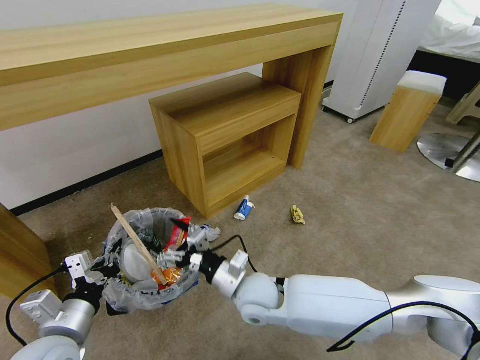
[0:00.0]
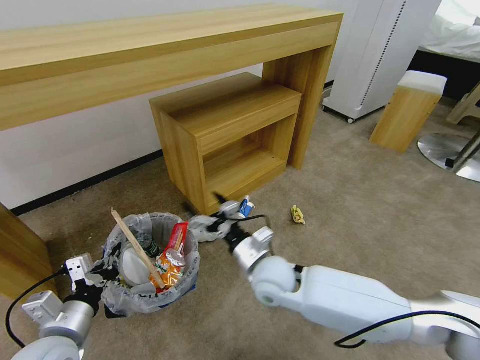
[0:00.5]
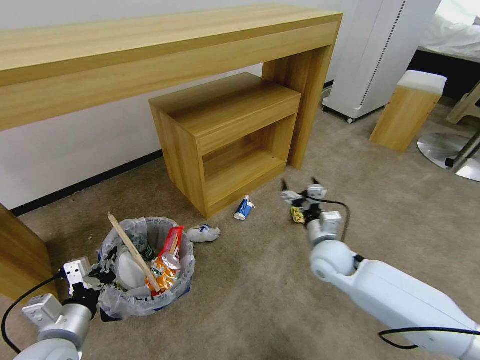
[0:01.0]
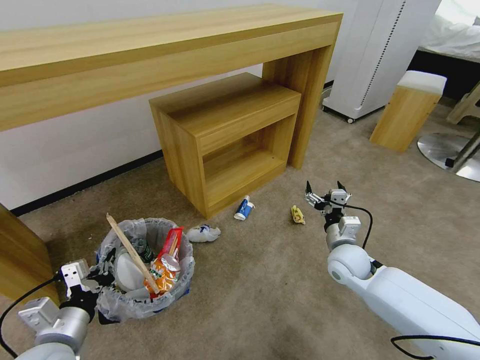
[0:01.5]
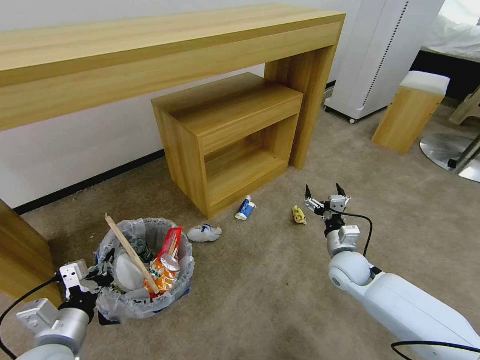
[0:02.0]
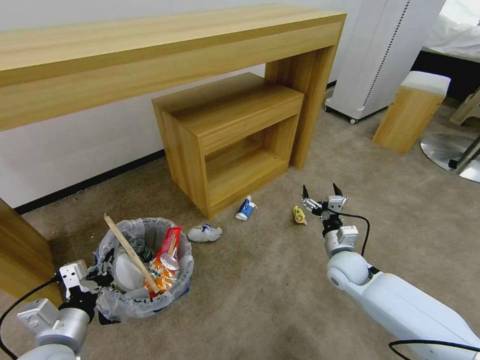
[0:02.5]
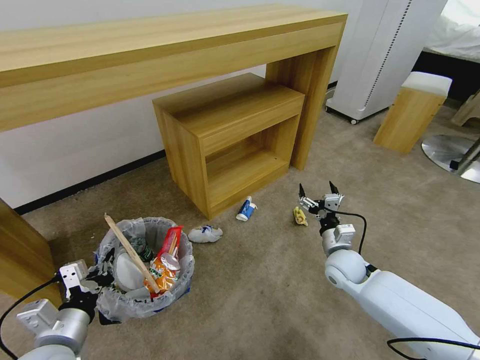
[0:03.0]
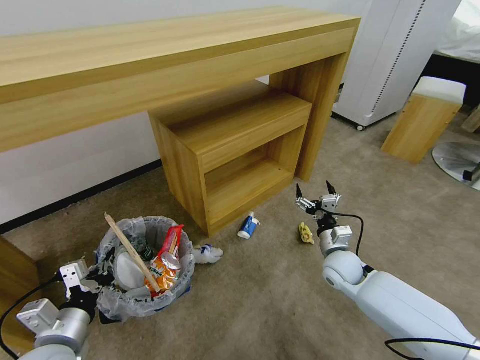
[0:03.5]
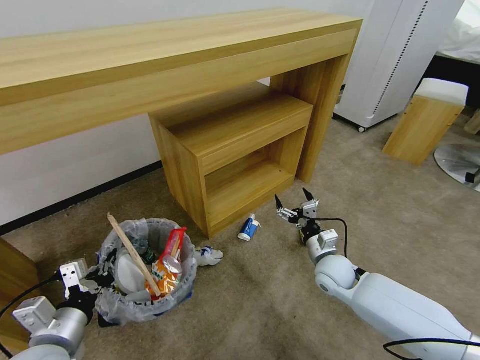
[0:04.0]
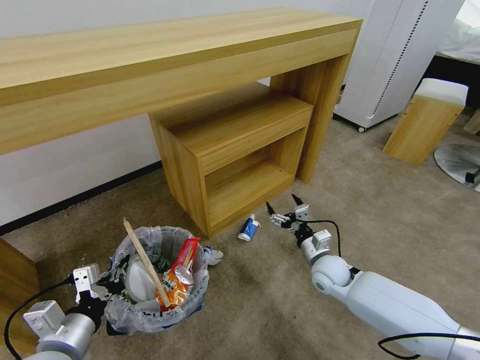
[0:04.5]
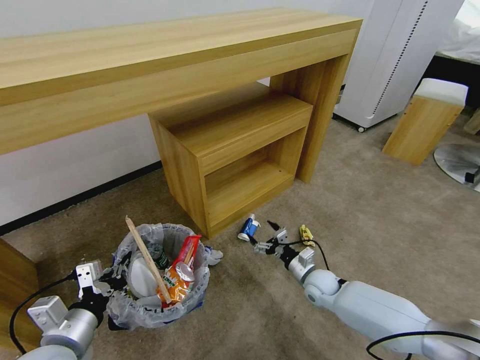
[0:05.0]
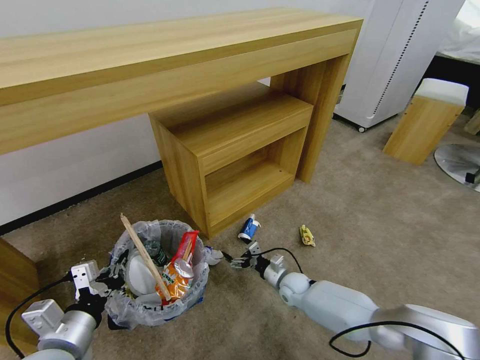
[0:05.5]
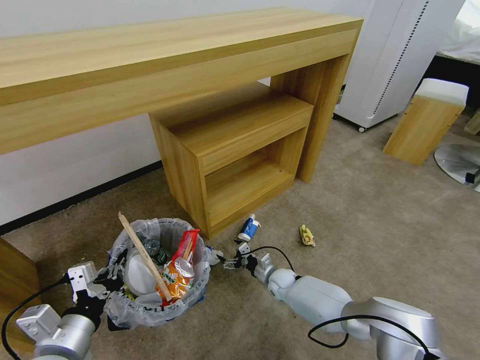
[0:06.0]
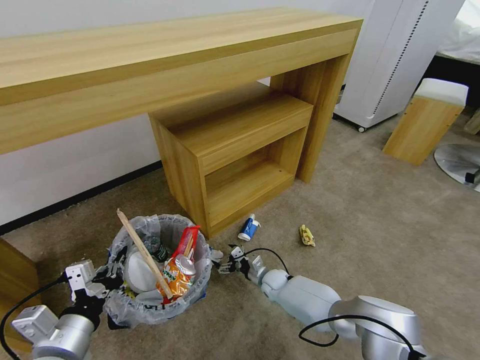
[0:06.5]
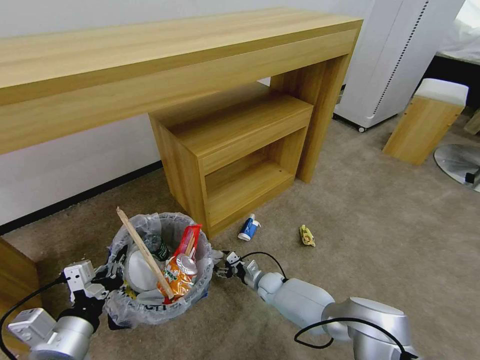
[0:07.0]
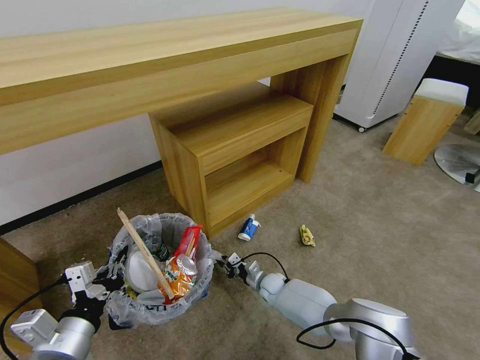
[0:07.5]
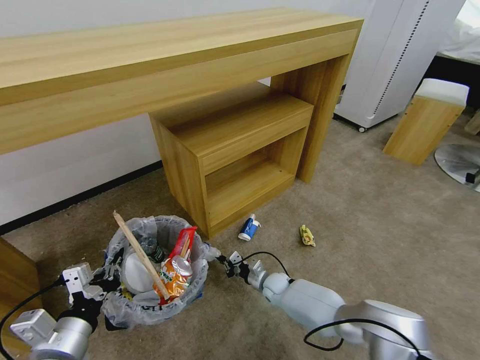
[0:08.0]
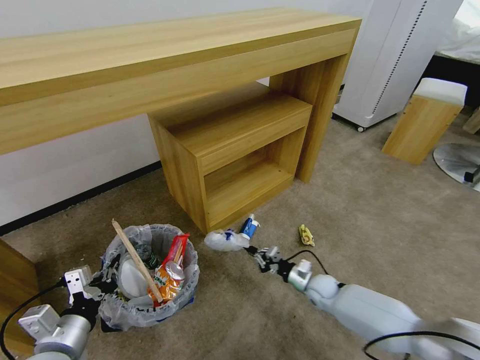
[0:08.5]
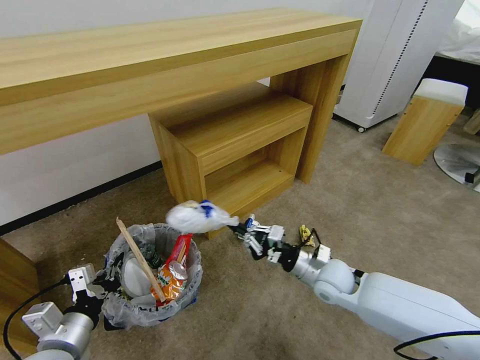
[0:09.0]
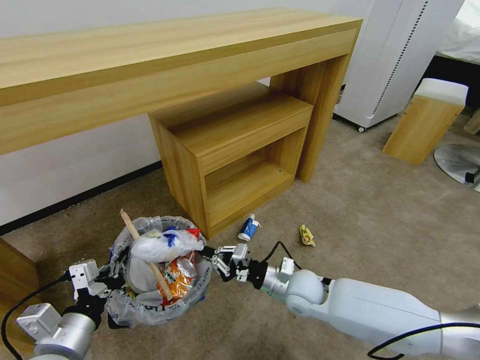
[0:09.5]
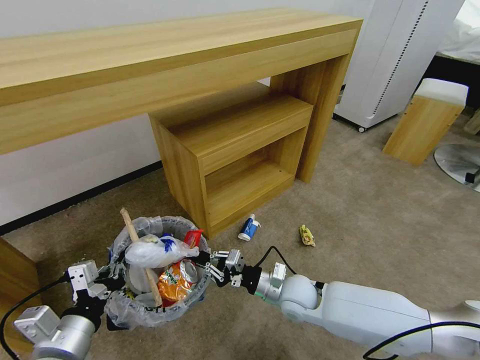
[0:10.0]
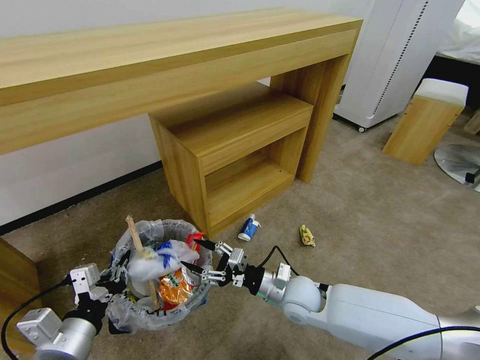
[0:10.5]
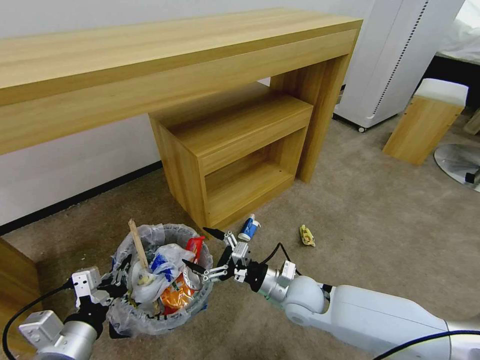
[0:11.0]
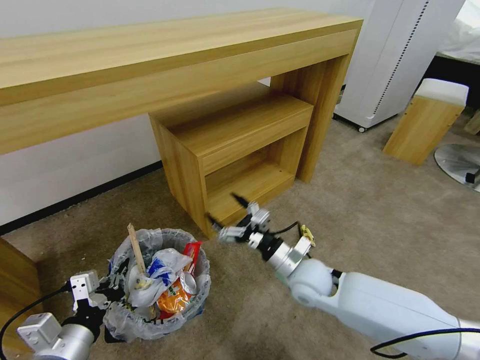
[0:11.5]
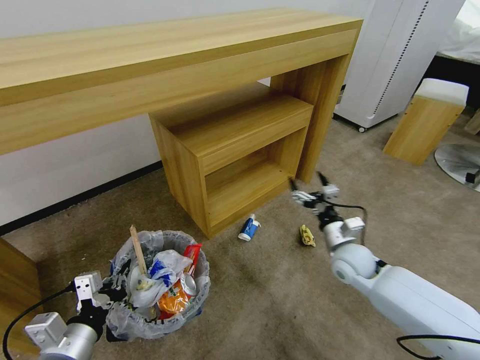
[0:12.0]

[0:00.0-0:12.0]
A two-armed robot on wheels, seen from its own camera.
Task of the whole recording: Pick up the trash bin and place the garbage on the floor into it.
0:00.0 to 0:02.0: The right gripper shifts some 25 cm to the right.
0:04.0 to 0:06.0: The right gripper travels downward and to the left by some 20 cm.
0:06.0 to 0:08.0: The right gripper closes its fingers.
0:08.0 to 0:10.0: The right gripper travels upward and backward by roughly 20 cm.
0:10.0 to 0:12.0: The right gripper goes some 15 cm to the right and forward, and opens its fingers.

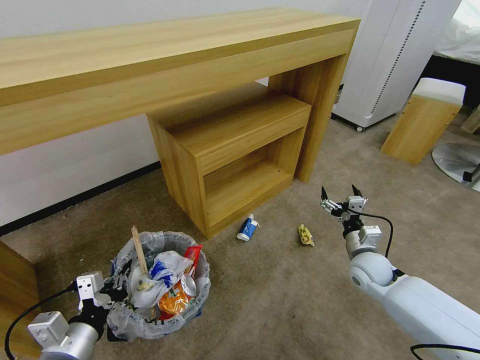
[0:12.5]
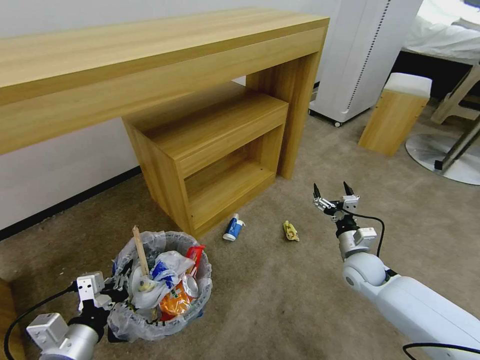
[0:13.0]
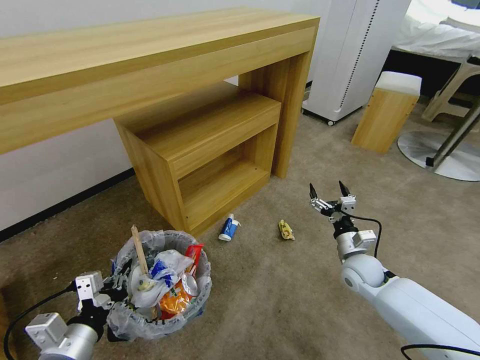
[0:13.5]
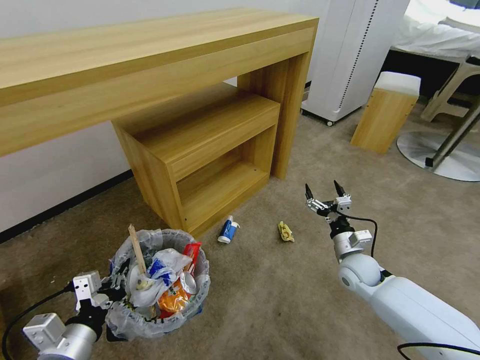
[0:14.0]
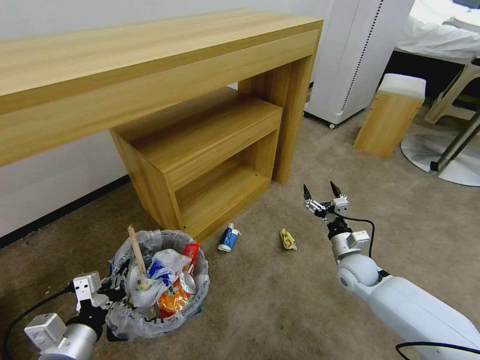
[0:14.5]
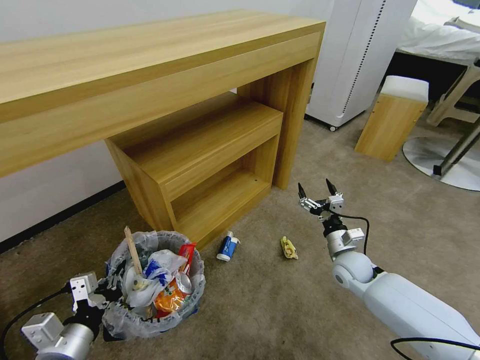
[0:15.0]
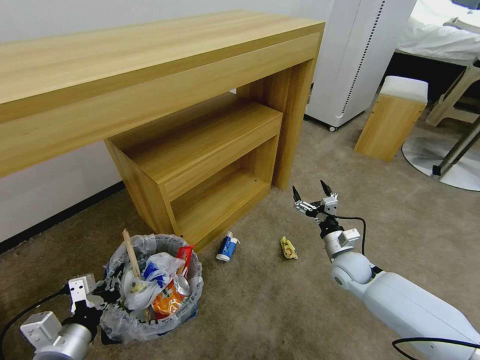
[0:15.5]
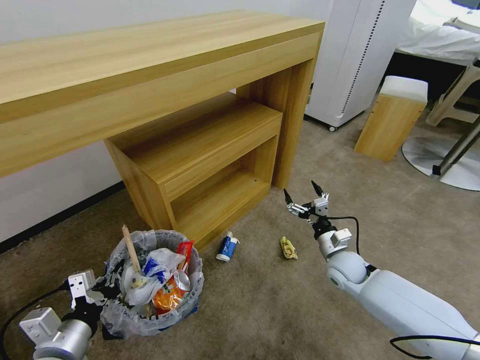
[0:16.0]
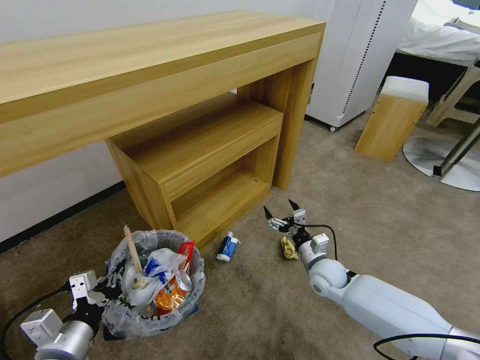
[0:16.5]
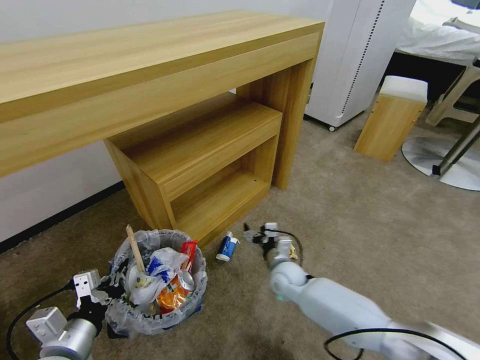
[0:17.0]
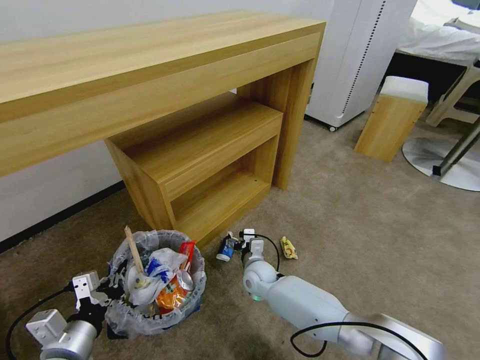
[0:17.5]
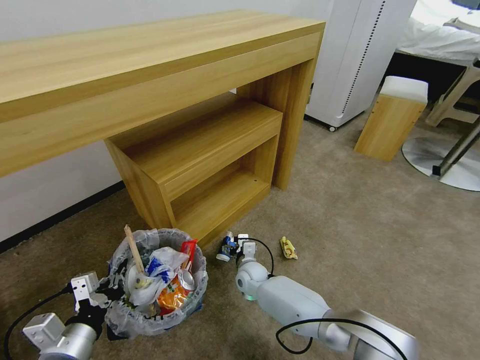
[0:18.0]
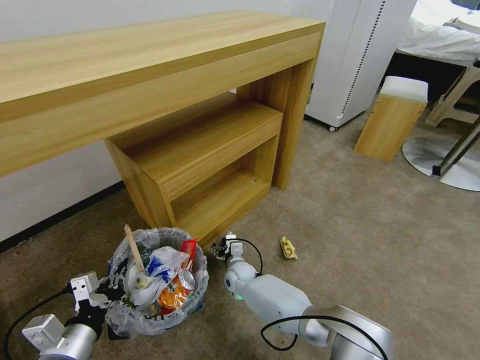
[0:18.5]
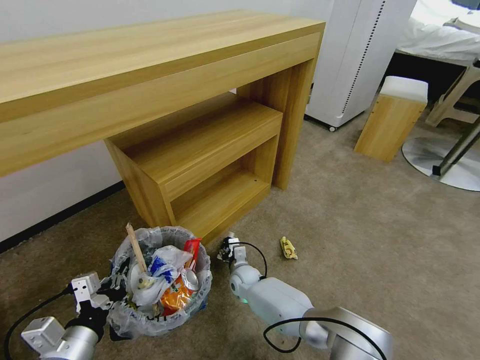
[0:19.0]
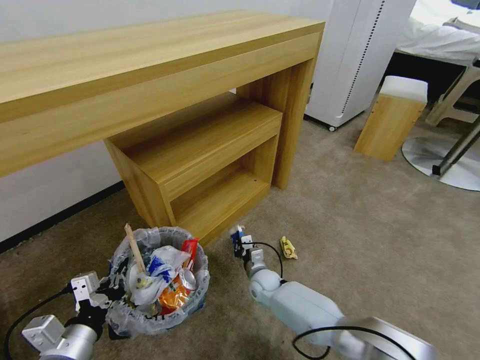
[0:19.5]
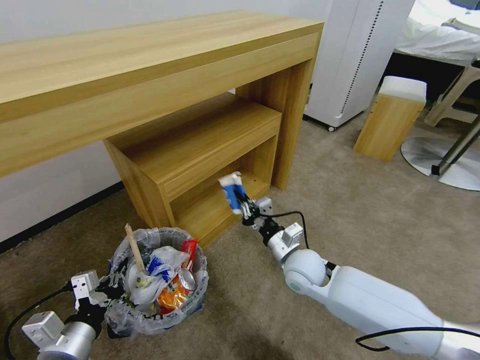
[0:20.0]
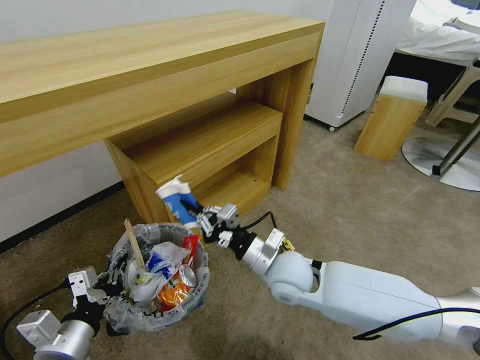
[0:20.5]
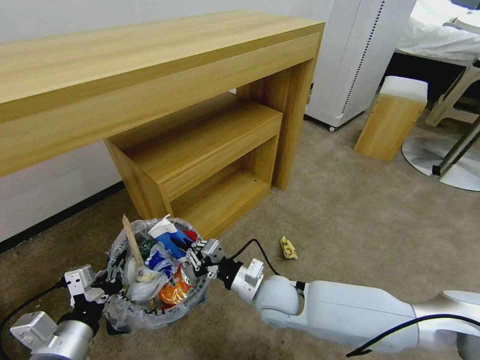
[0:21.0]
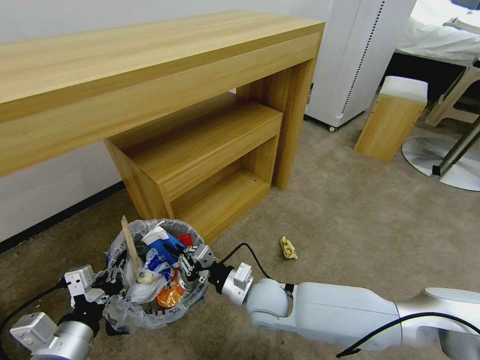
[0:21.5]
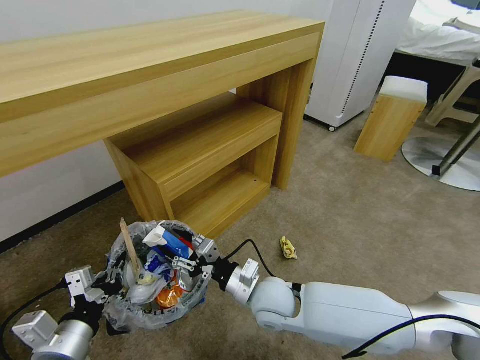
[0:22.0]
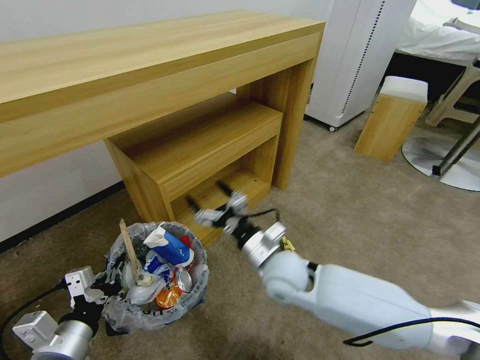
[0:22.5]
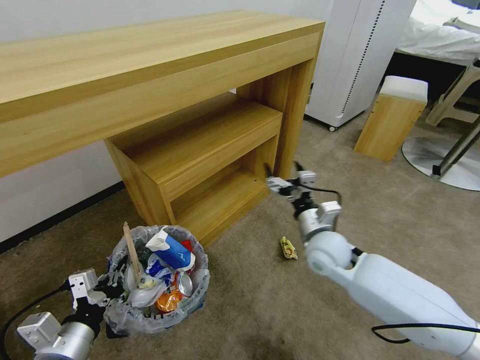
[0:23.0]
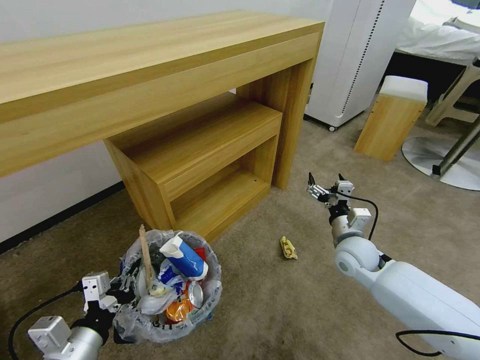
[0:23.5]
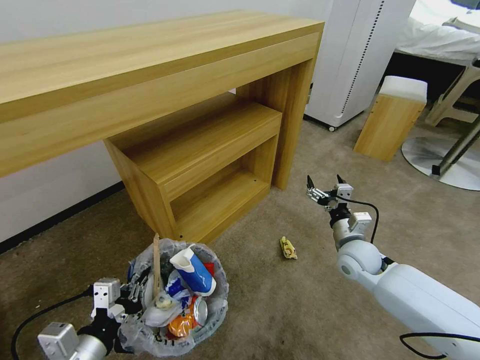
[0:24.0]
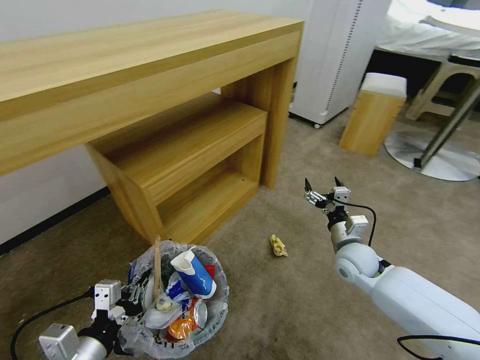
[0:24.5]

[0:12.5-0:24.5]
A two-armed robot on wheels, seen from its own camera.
Task of the whole recording: Pick up the trash bin and place the garbage on the floor into it.
0:14.5 to 0:16.5: The right gripper travels to the left by approximately 5 cm.
0:16.5 to 0:18.5: The right gripper goes approximately 25 cm to the left.
0:18.5 to 0:20.5: The right gripper goes some 25 cm upward, backward and to the right, and closes.
0:20.5 to 0:22.5: The right gripper goes downward and returns, some 10 cm each way, and opens up.
0:22.5 to 0:24.5: The right gripper is displaced to the right by approximately 20 cm.

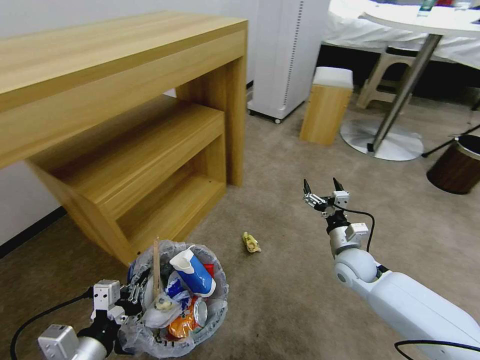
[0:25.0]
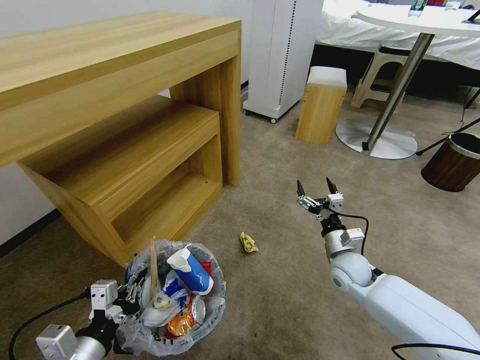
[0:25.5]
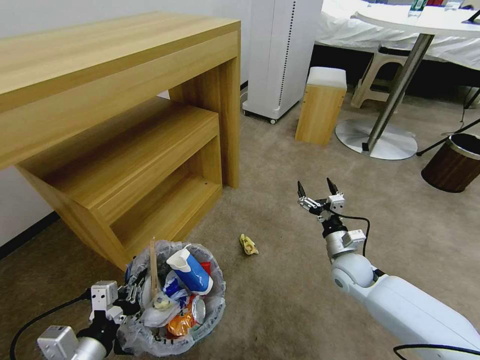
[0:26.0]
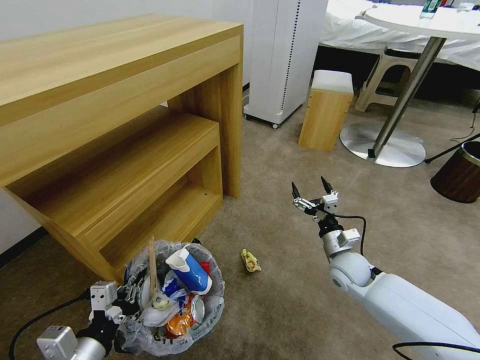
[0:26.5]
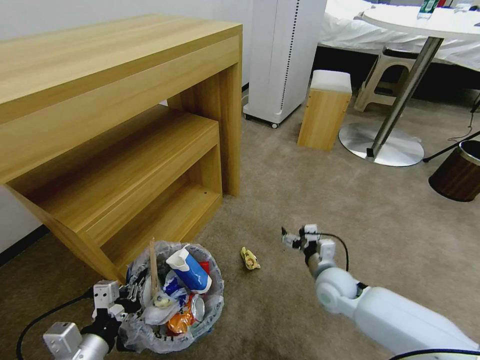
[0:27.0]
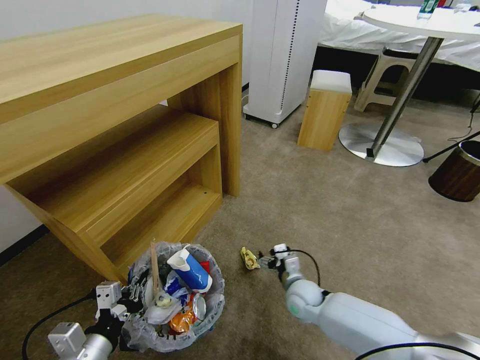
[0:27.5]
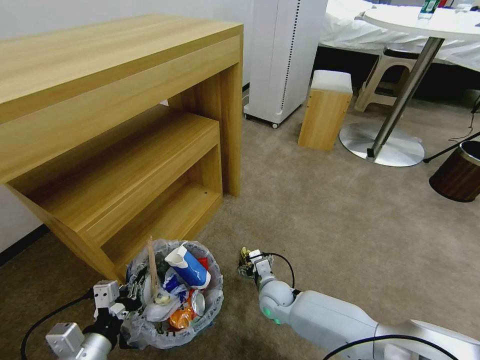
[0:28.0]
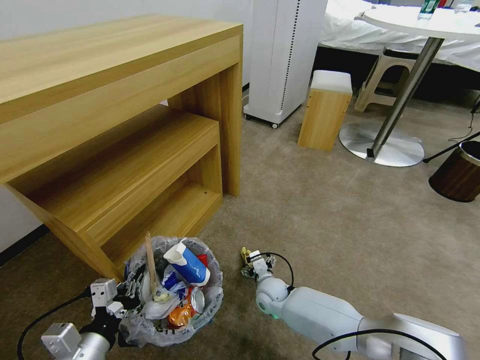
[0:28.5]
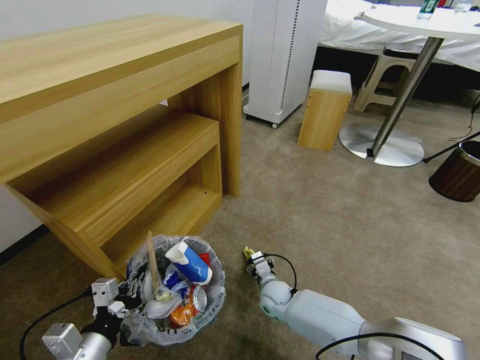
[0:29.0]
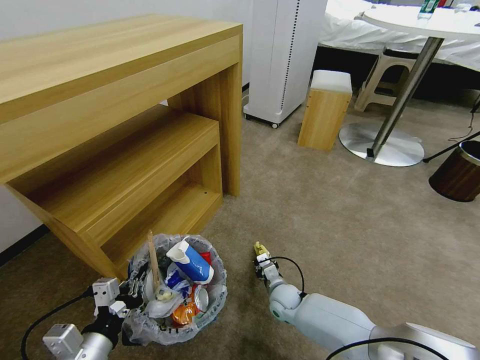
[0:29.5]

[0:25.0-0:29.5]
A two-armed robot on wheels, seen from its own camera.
Task of the whole recording: Pick up the trash bin and place the garbage on the floor into it.
0:25.0 to 0:27.0: The right gripper travels to the left by approximately 5 cm.
0:27.0 to 0:29.5: The right gripper heads downward and to the left, covering about 15 cm, and closes.
